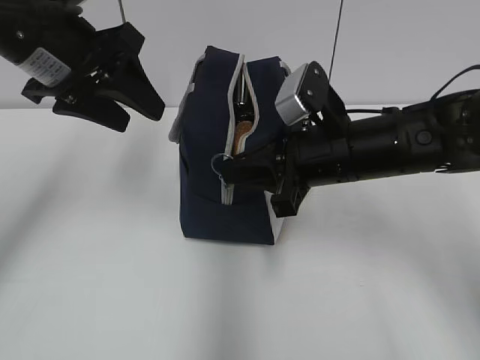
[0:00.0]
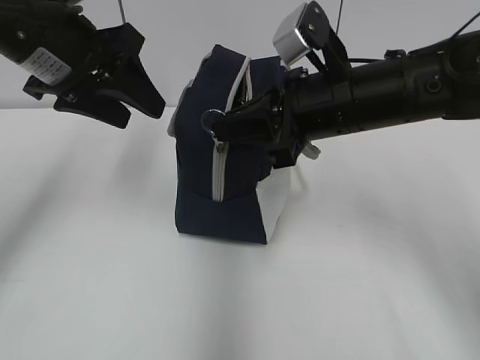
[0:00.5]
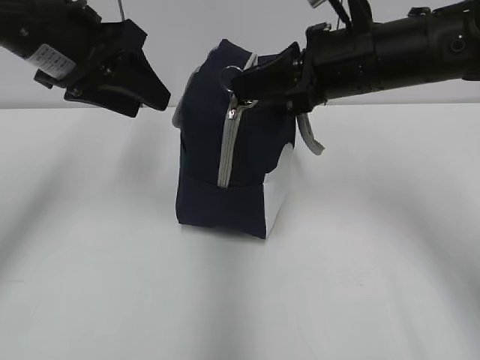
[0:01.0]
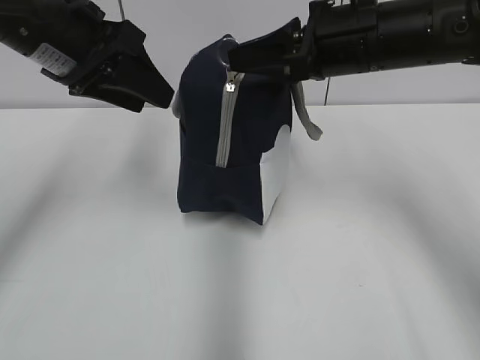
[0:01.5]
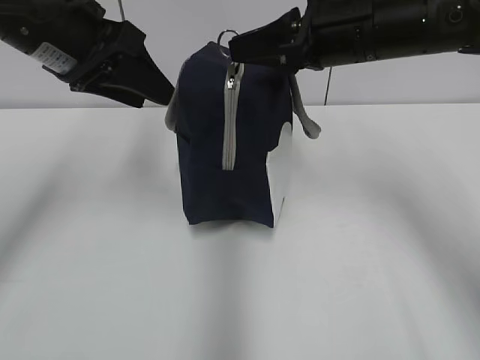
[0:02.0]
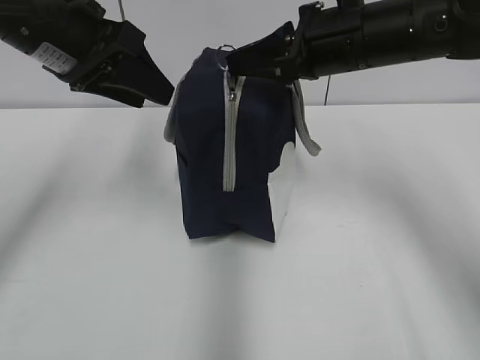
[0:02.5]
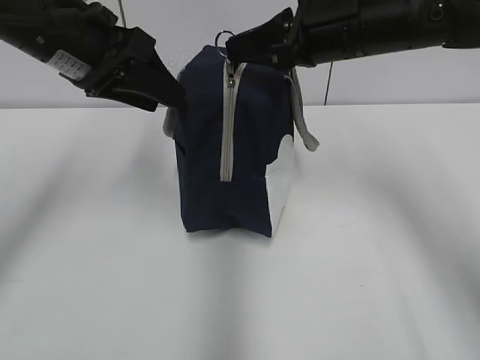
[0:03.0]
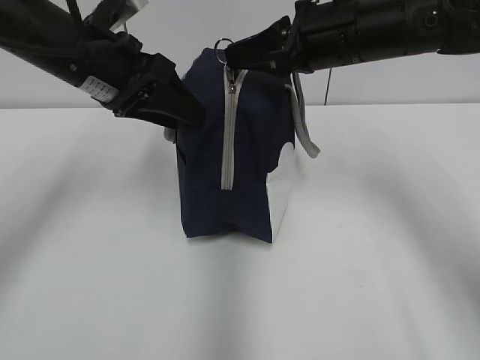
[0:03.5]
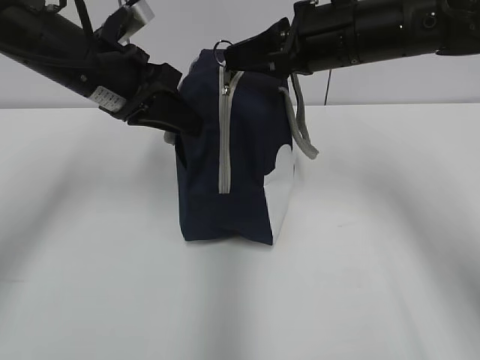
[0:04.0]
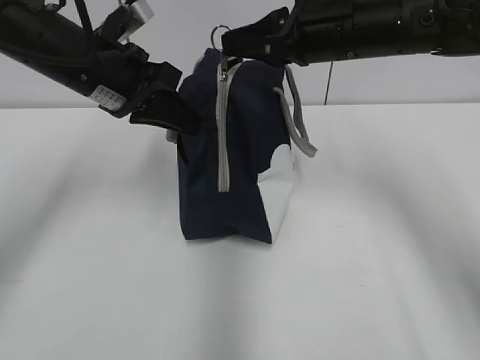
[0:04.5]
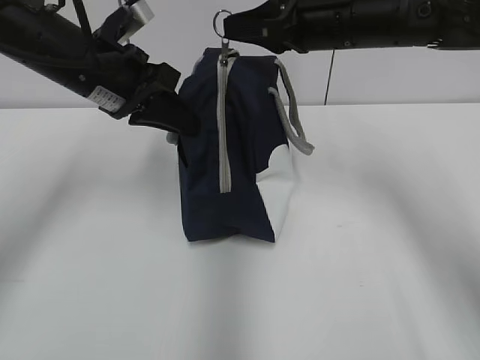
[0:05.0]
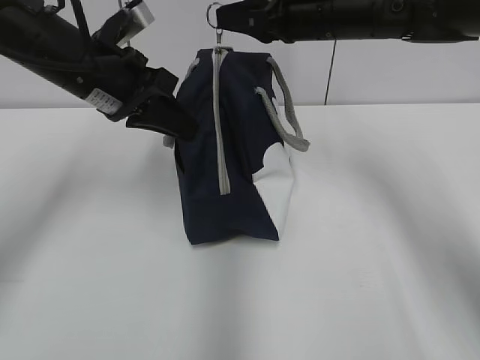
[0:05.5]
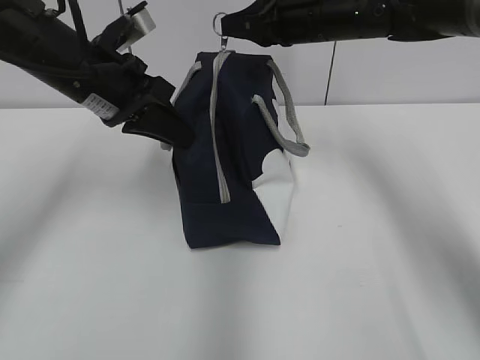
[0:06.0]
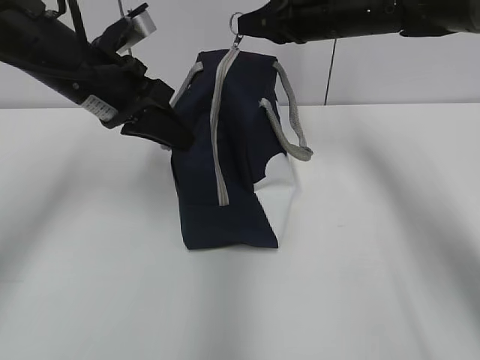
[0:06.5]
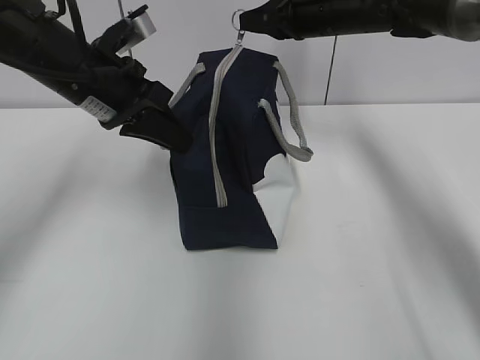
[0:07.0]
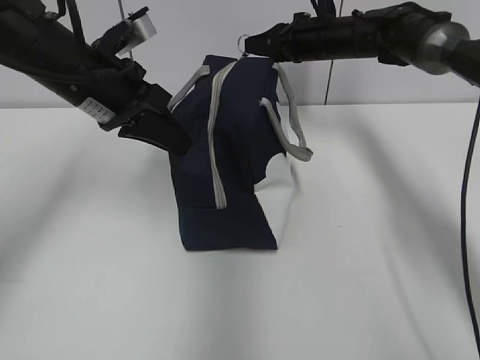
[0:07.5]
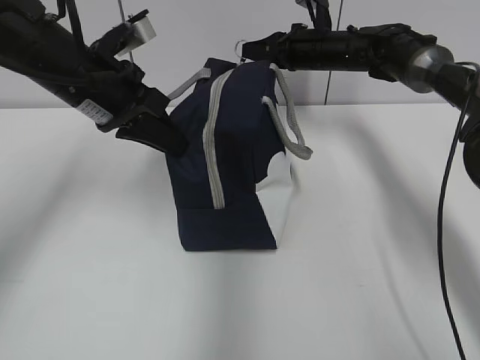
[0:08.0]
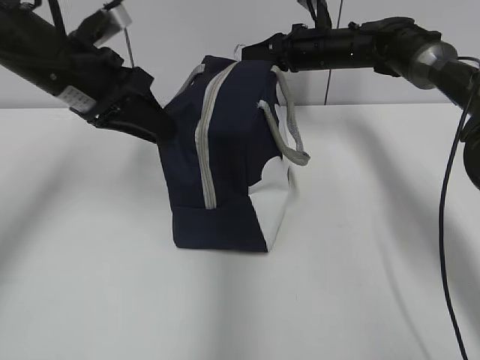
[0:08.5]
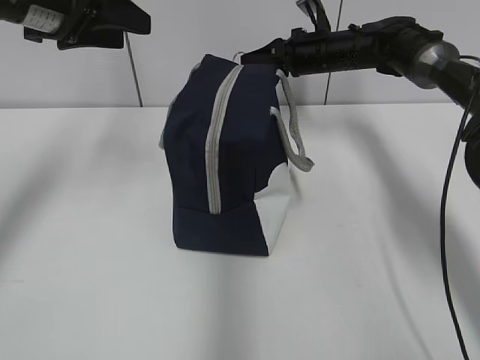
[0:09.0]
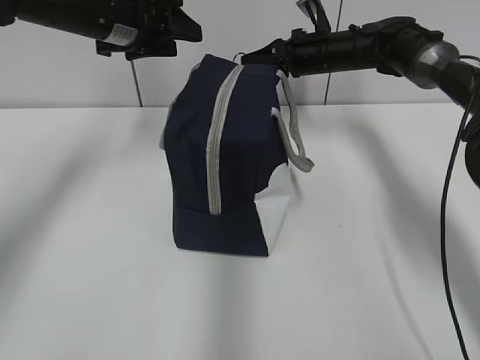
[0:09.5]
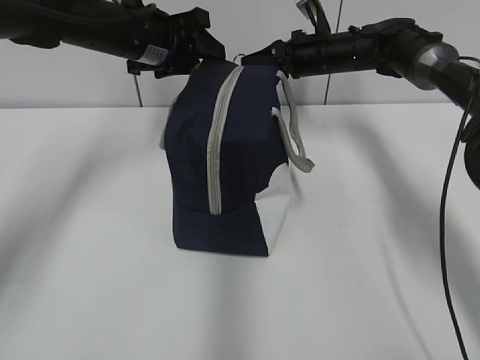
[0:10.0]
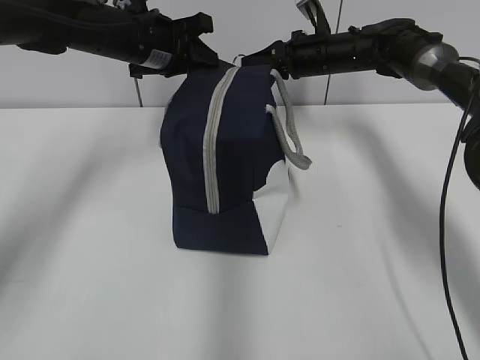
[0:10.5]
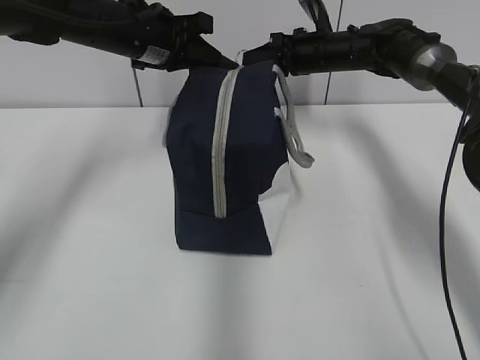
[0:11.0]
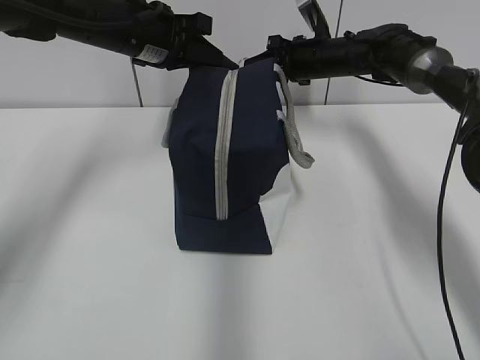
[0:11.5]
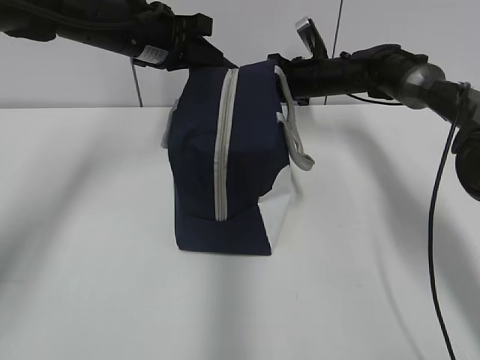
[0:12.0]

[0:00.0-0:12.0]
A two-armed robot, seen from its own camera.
Step, 0:00.0 to 0:08.0: Grab the lunch bag with your left hand.
0:00.0 to 0:02.0: The right gripper travels upward by about 10 cm.
0:02.0 to 0:04.0: The left gripper shifts about 5 cm downward, and closes its fingers.
0:04.0 to 0:06.0: The right gripper moves forward, roughly 10 cm.
0:06.0 to 0:08.0: The right gripper is displaced forward and downward by some 15 cm.
0:08.0 to 0:10.0: The left gripper moves forward, roughly 10 cm, and opens.
0:10.0 to 0:12.0: The left gripper closes its fingers.

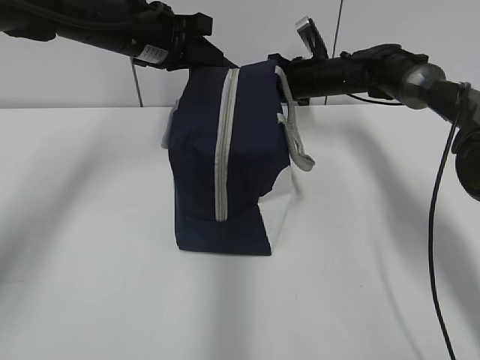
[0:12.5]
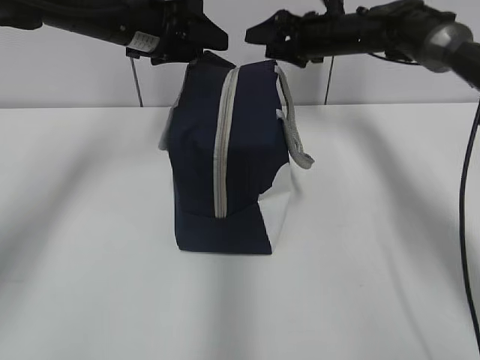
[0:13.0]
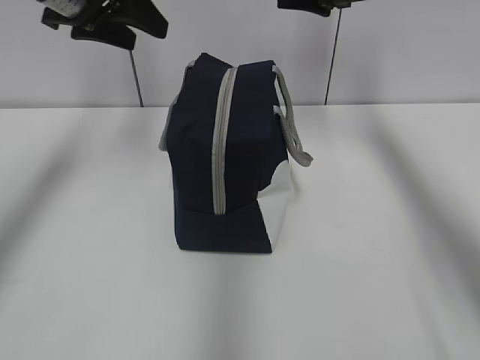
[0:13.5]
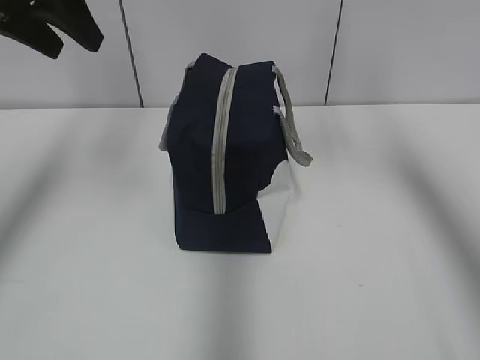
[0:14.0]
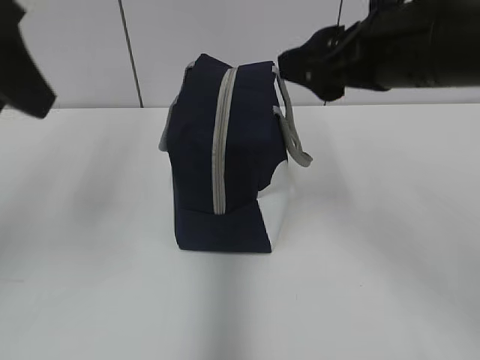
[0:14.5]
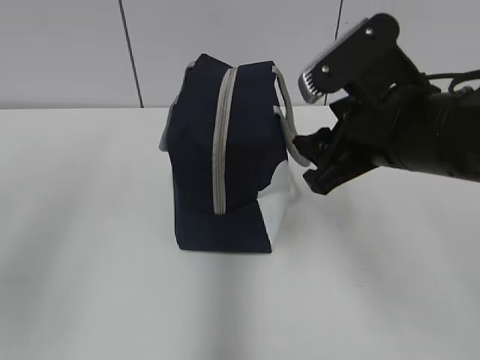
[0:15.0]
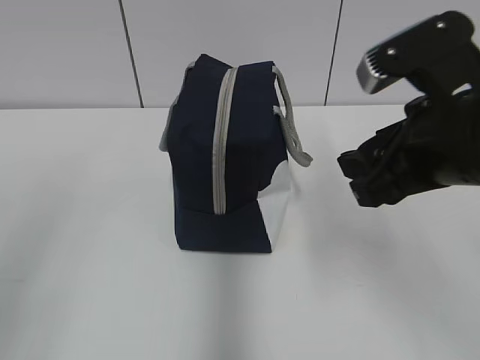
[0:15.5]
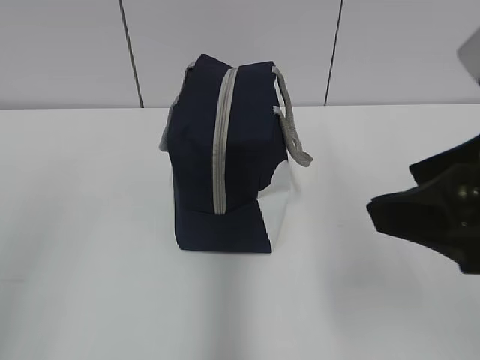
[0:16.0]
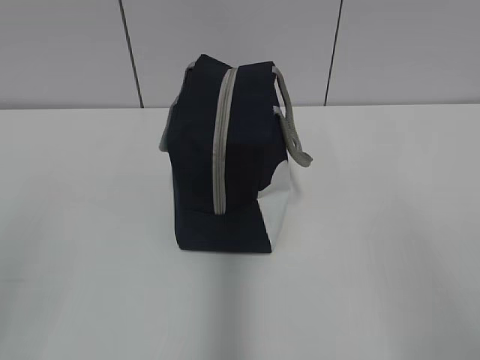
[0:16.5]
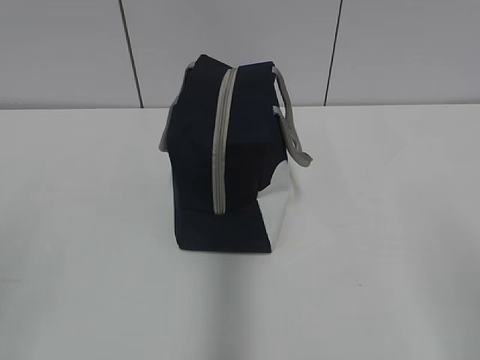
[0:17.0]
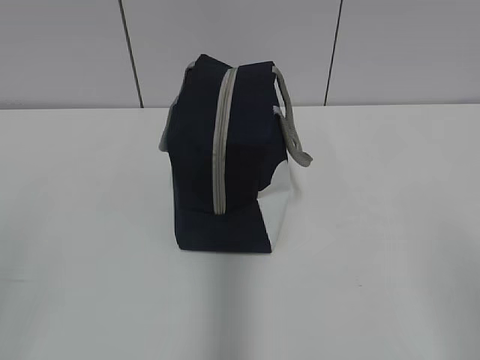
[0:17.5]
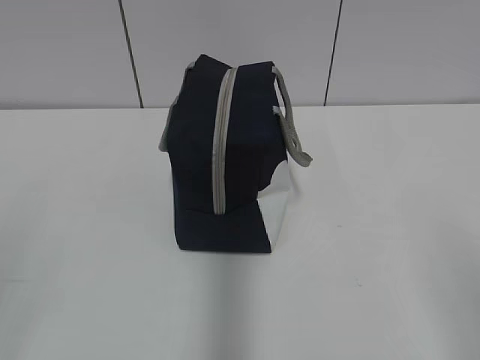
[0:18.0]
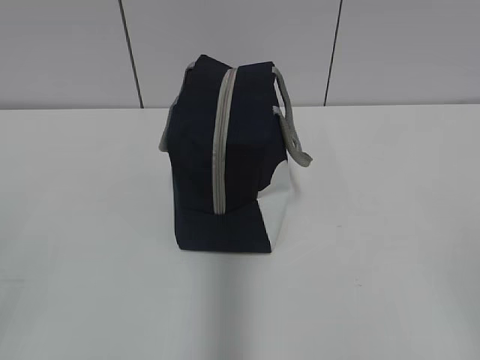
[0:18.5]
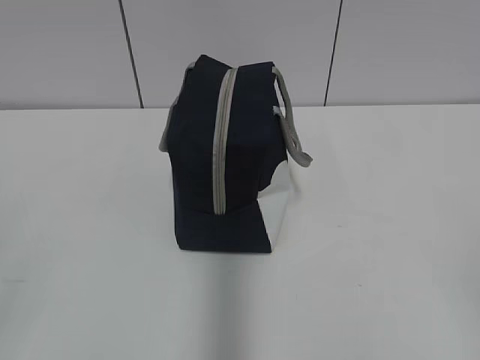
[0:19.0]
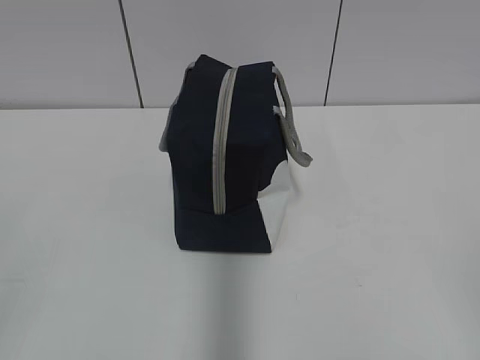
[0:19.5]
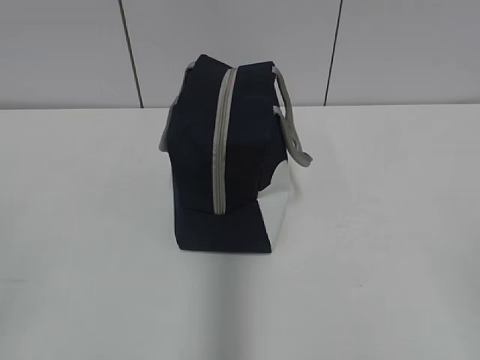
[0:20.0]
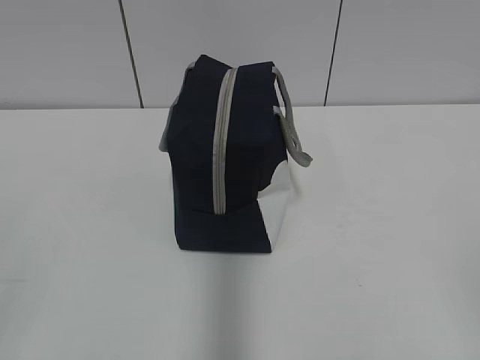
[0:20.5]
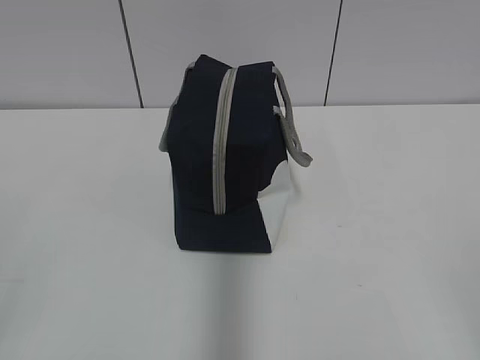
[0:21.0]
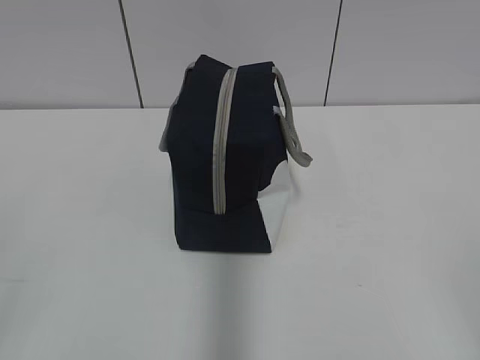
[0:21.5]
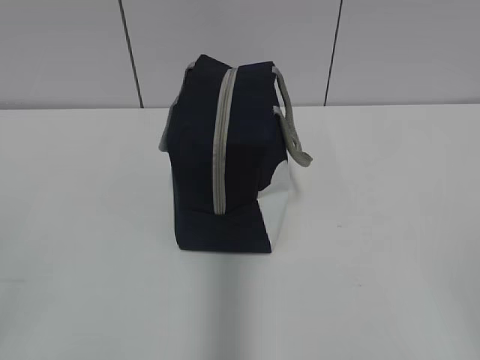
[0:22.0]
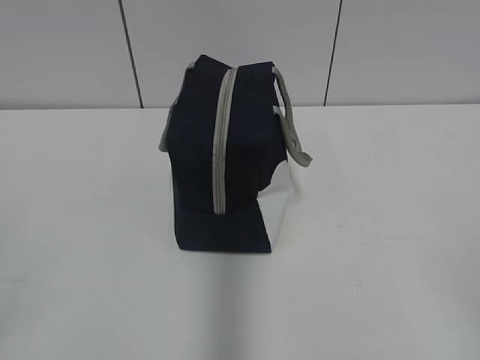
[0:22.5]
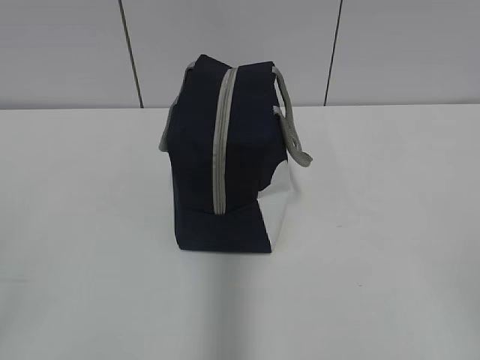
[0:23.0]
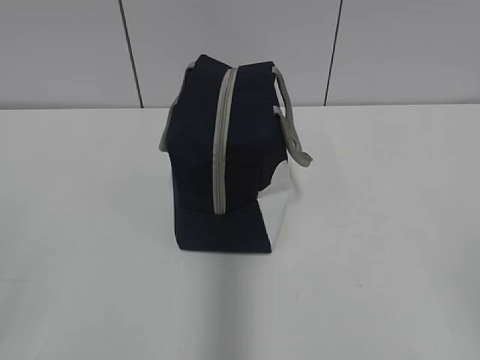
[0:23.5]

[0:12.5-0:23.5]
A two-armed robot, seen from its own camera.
0:12.5 to 0:14.5: Both grippers travel together backward and upward, approximately 30 cm. The right gripper opens; the left gripper opens.
0:14.5 to 0:16.0: The two grippers go some 15 cm backward.
0:16.0 to 0:18.0: The right gripper moves backward and to the right, approximately 15 cm.
